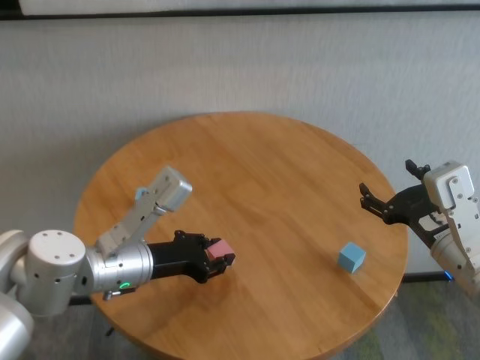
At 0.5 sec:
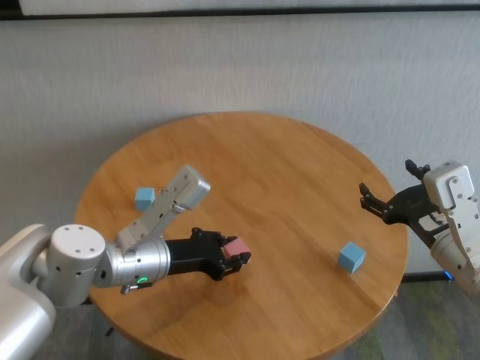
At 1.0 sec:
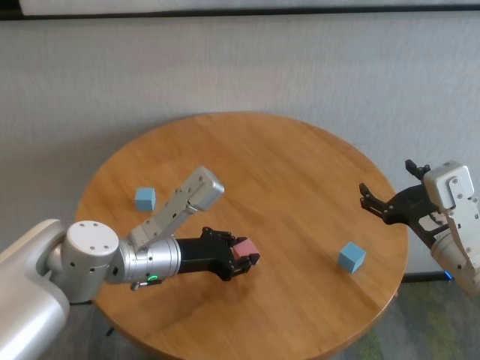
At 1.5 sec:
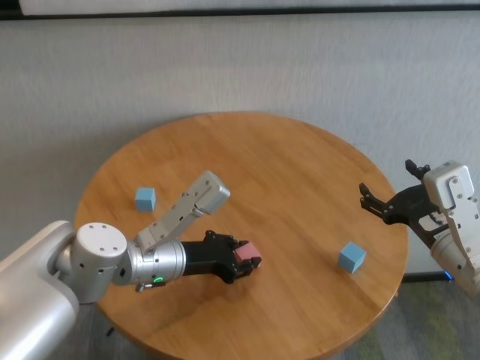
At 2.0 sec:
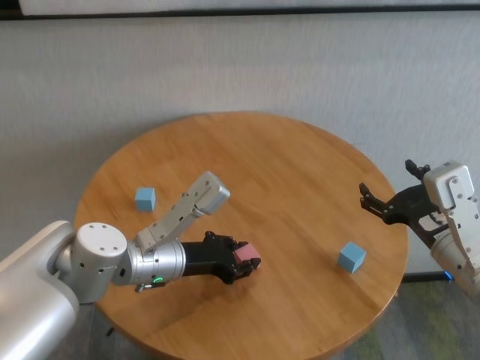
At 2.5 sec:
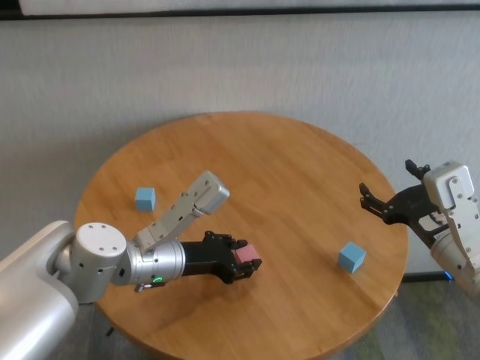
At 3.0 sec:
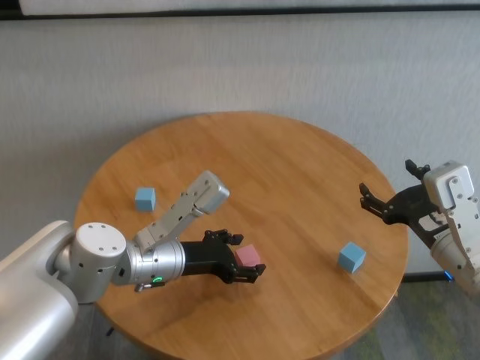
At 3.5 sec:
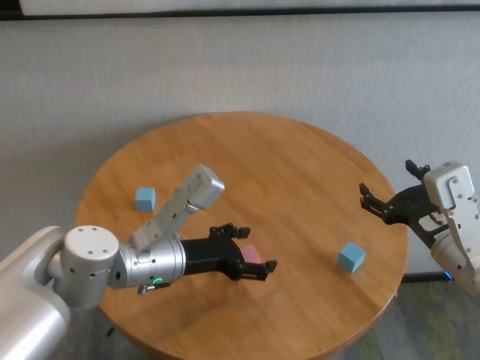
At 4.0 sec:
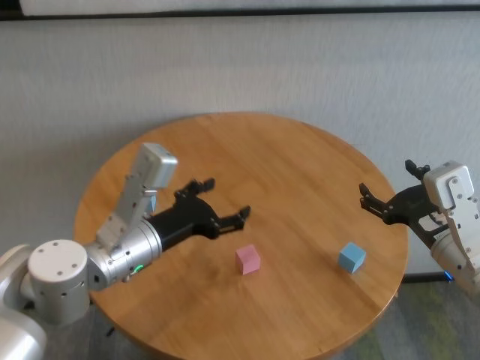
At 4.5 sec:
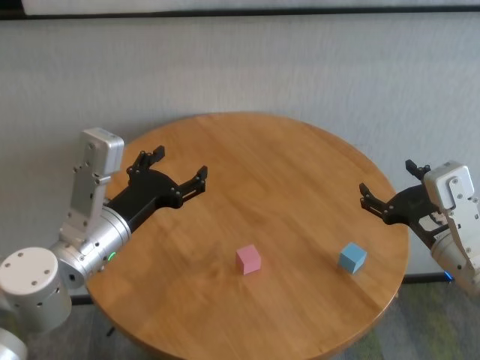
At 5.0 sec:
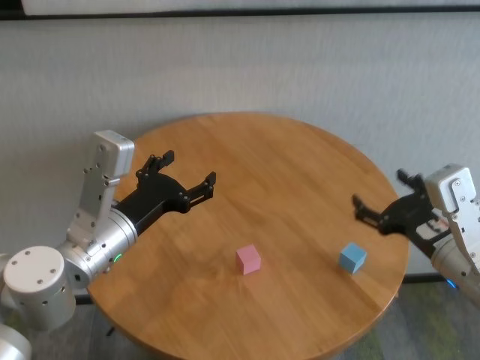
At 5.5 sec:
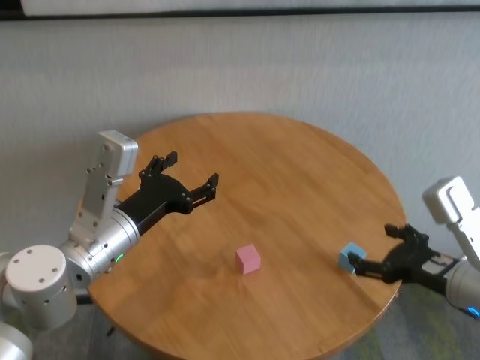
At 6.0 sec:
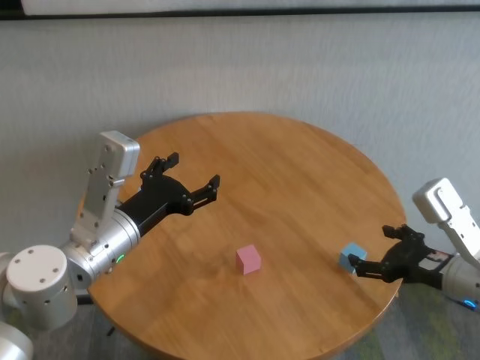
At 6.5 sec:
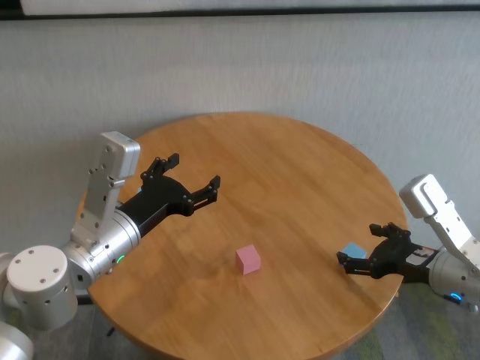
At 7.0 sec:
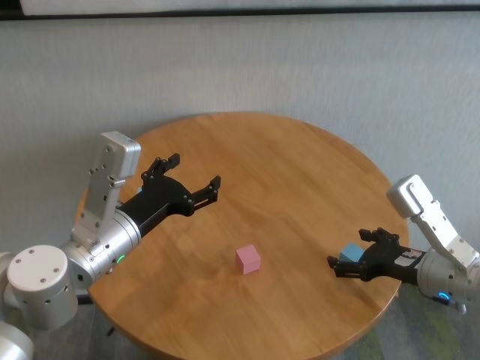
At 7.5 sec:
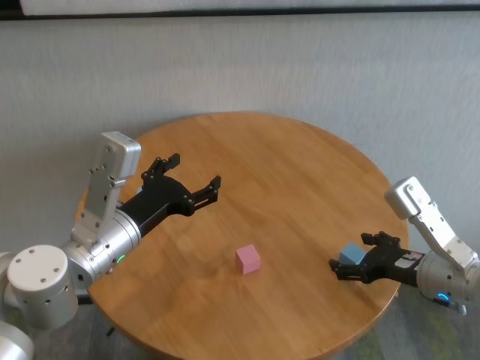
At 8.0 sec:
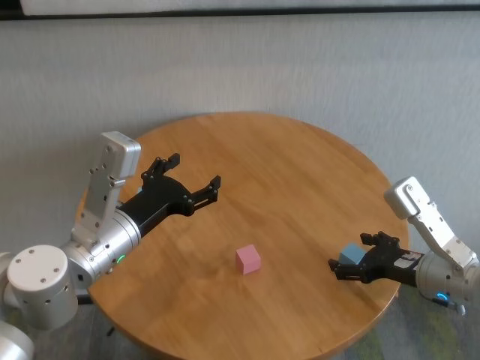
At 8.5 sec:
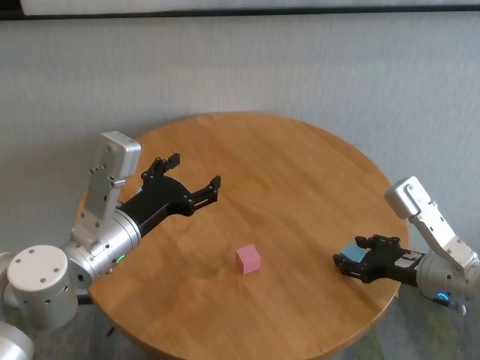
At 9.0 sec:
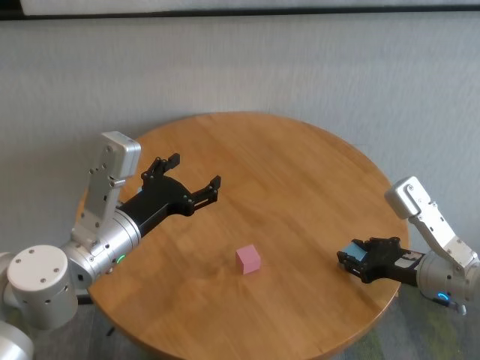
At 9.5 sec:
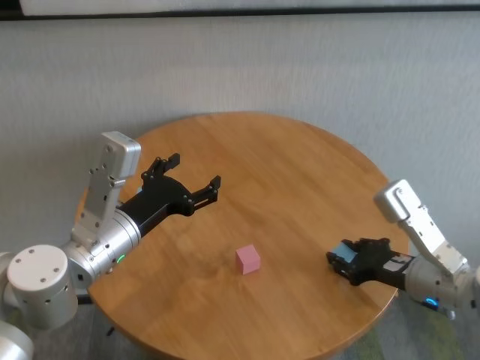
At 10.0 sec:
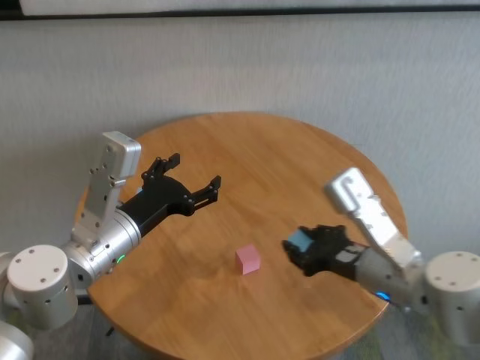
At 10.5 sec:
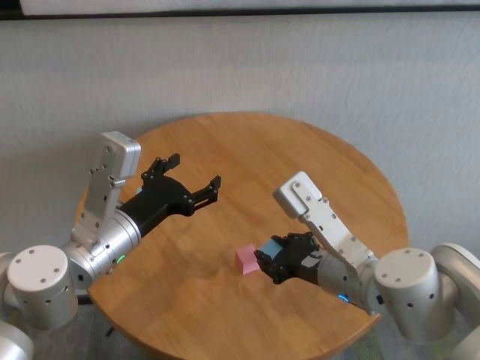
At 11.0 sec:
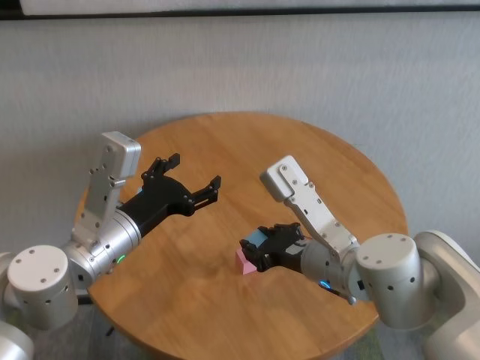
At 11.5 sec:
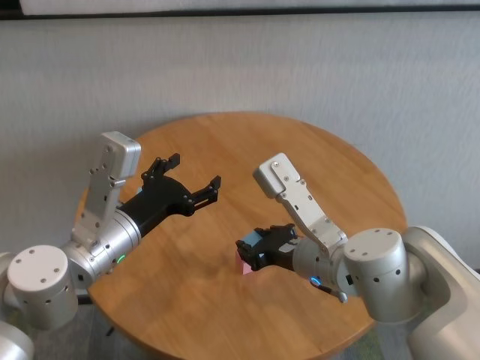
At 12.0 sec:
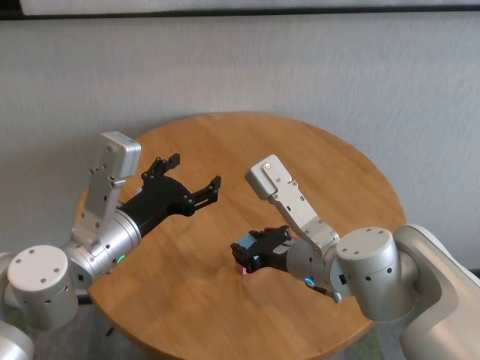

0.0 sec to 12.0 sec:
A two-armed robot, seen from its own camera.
Task of the whole recording: stack building blocks on the table.
Step, 0.0 sec to 3.0 sec: Place the pink building block in the center of table with left gripper.
Step, 3.5 sec to 9.0 sec: Grasp the blue building block with right gripper.

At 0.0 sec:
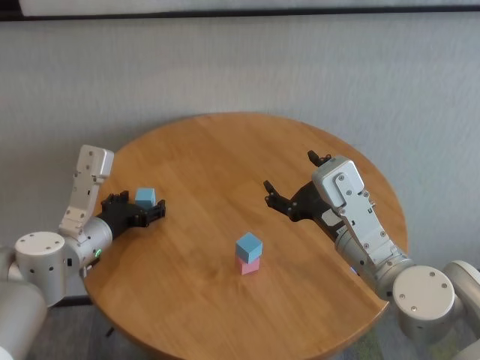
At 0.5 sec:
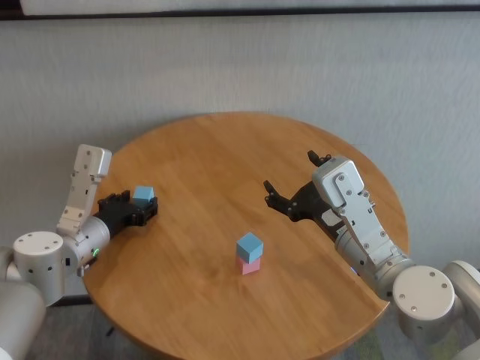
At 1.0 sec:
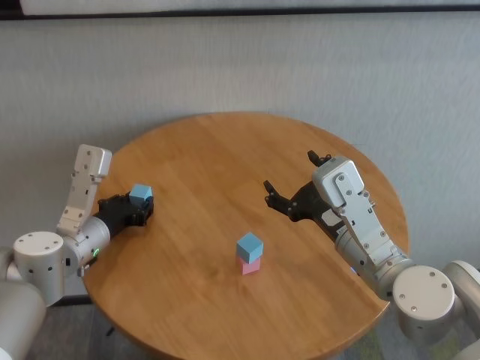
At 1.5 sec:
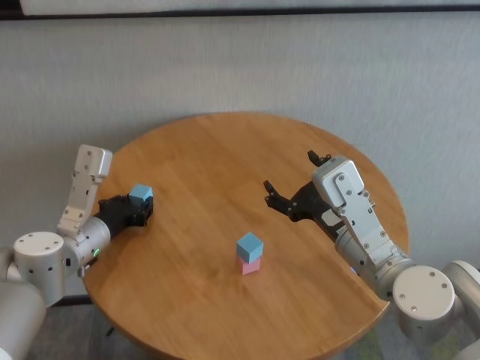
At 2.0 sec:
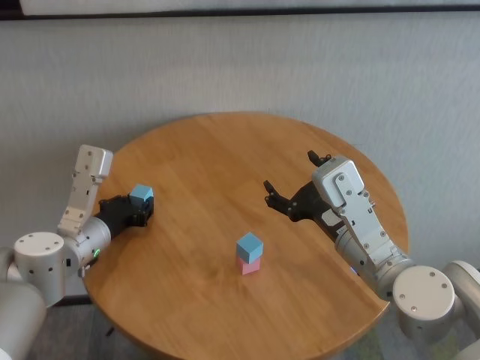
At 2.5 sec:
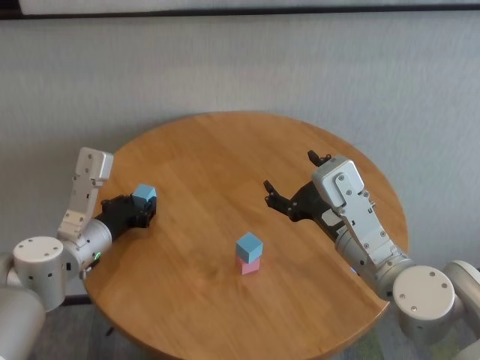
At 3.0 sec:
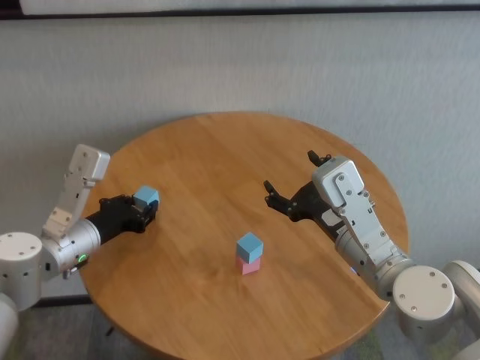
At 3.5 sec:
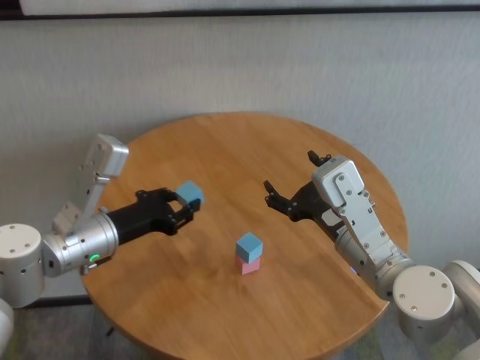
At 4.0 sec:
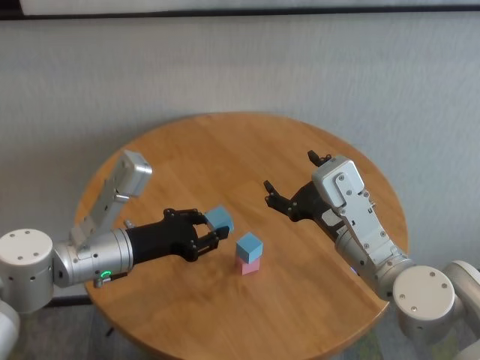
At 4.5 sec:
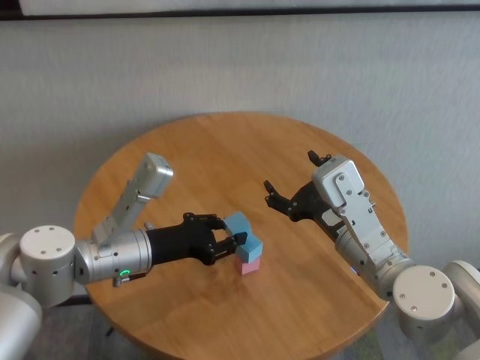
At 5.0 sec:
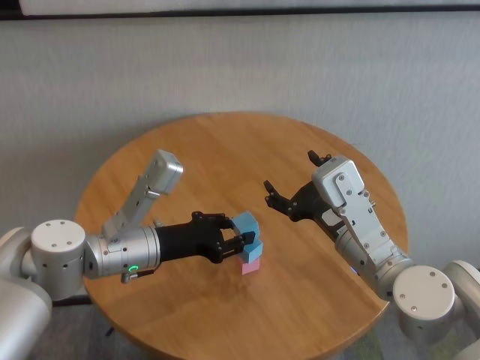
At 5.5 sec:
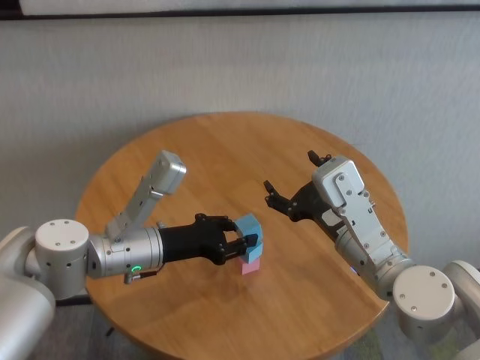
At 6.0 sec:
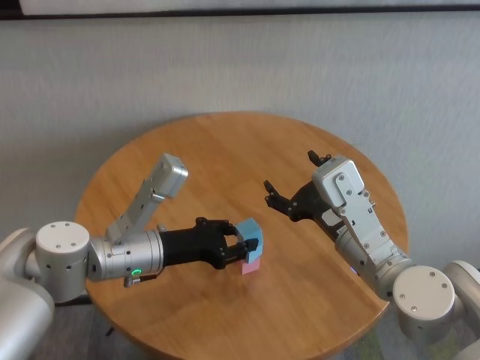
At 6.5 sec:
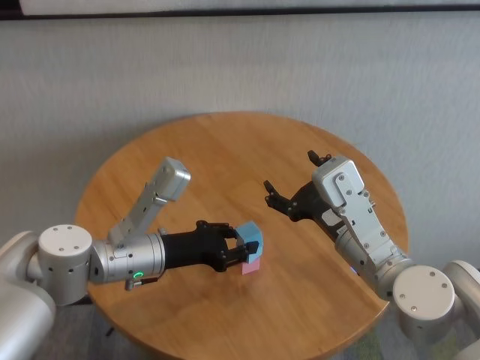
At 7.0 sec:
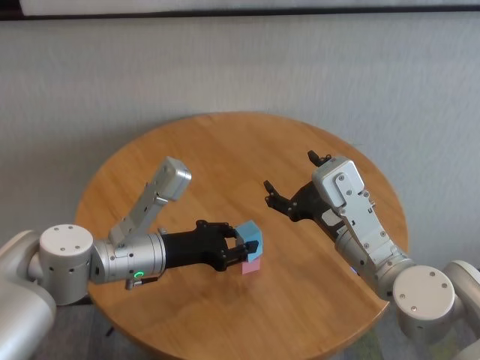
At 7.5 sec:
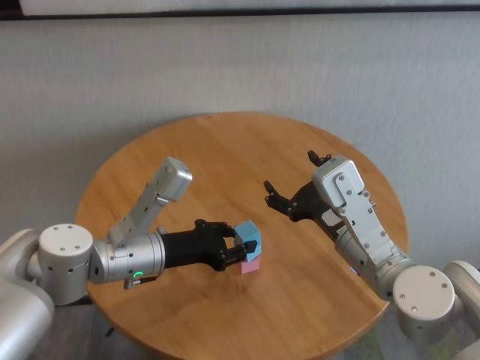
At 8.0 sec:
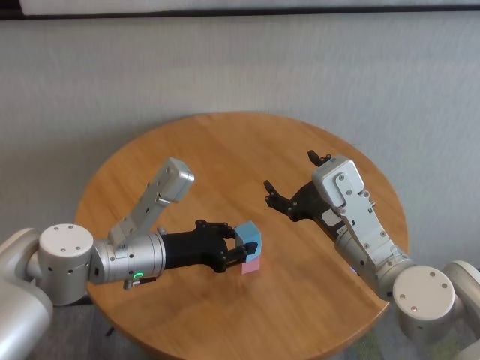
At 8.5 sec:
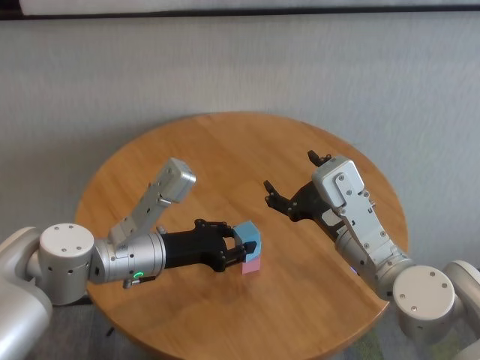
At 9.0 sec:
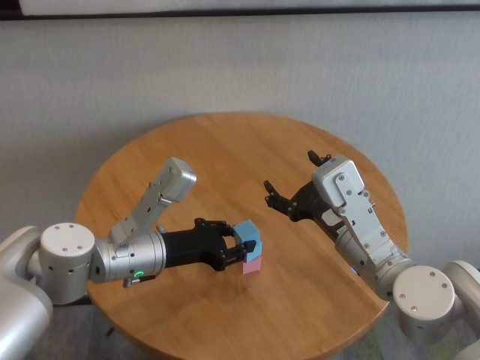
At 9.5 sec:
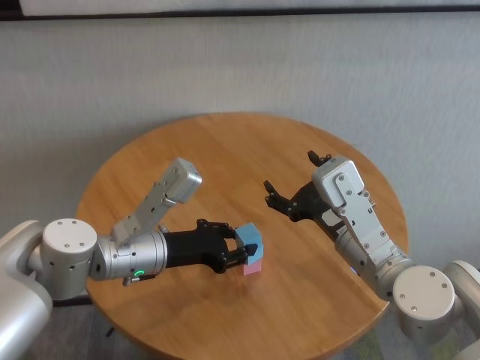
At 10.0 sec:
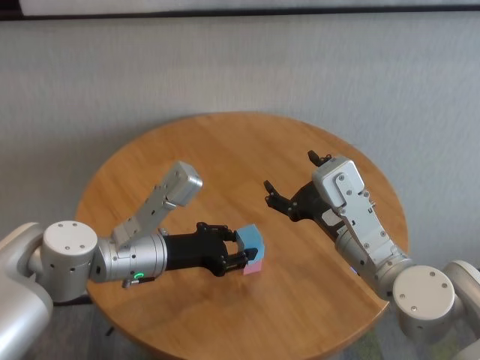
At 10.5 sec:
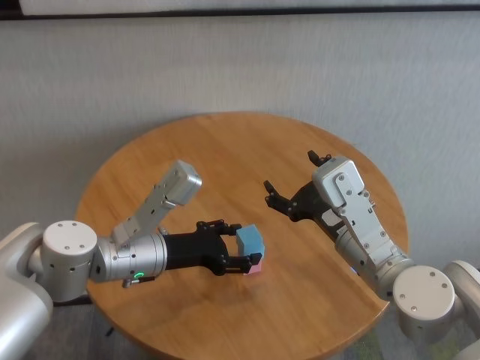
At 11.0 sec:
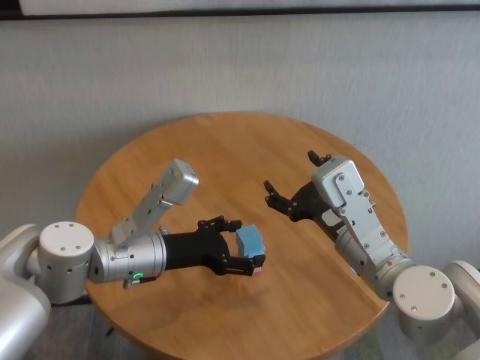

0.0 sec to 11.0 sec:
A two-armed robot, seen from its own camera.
Task of the whole recording: stack building blocks on the table.
Step, 2.5 sec to 10.5 sec: Place the blue building block on the blue building blocks with left gripper.
